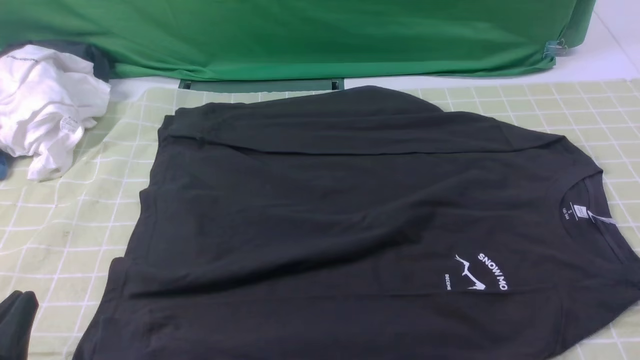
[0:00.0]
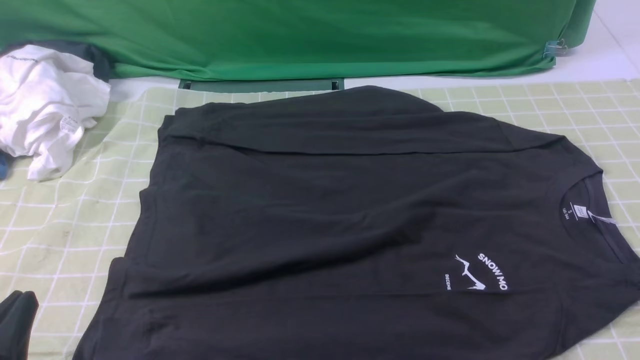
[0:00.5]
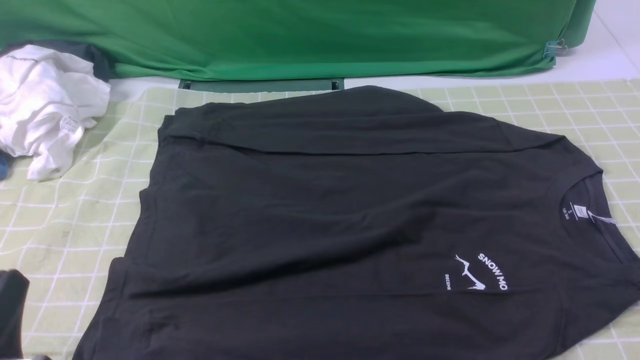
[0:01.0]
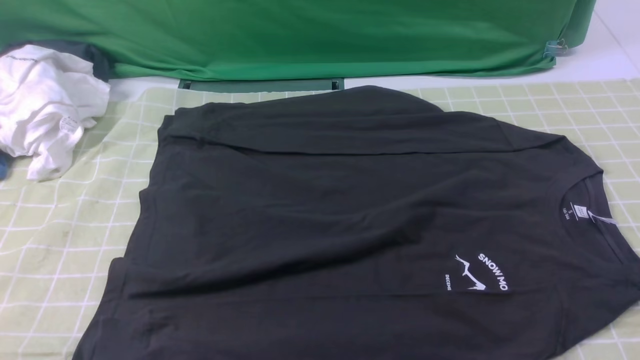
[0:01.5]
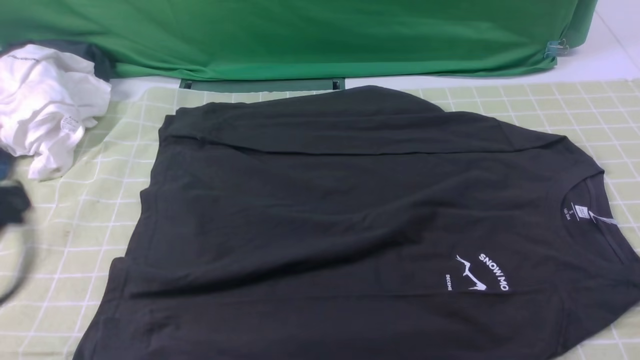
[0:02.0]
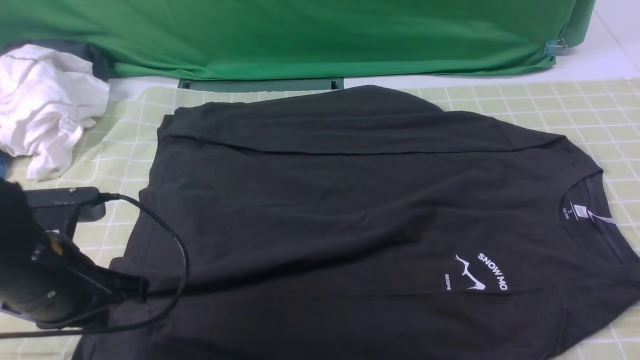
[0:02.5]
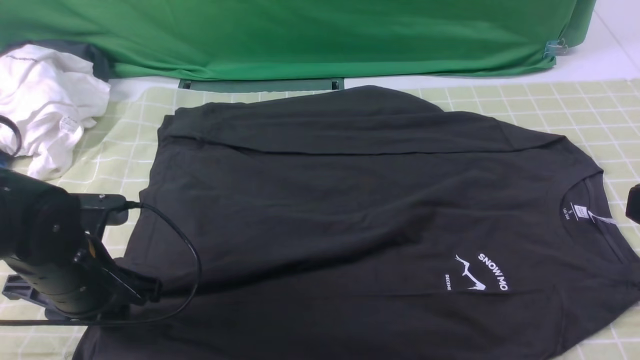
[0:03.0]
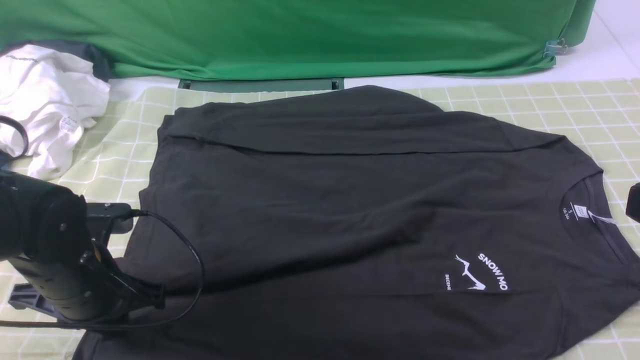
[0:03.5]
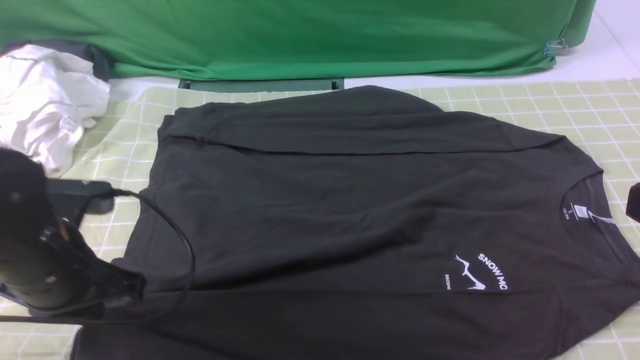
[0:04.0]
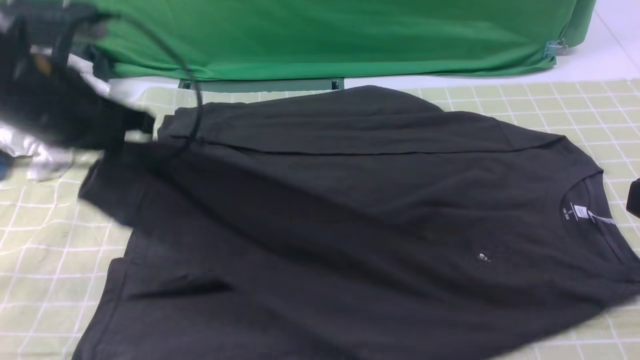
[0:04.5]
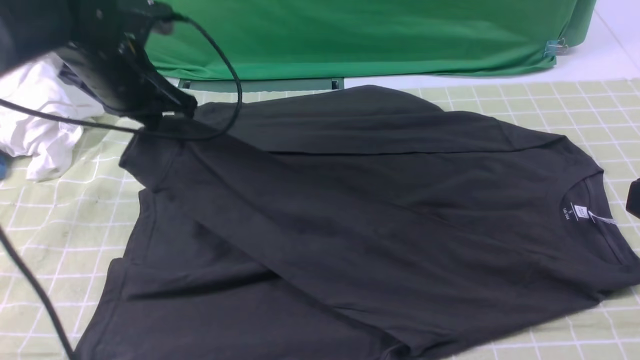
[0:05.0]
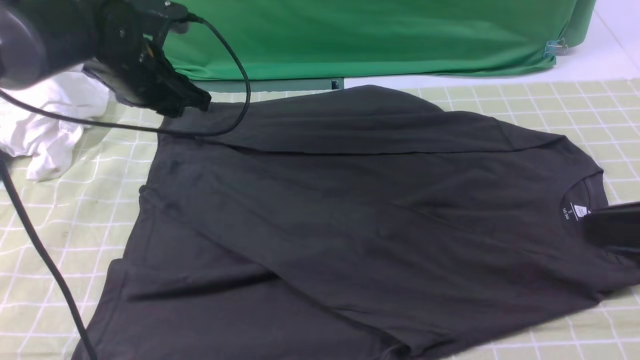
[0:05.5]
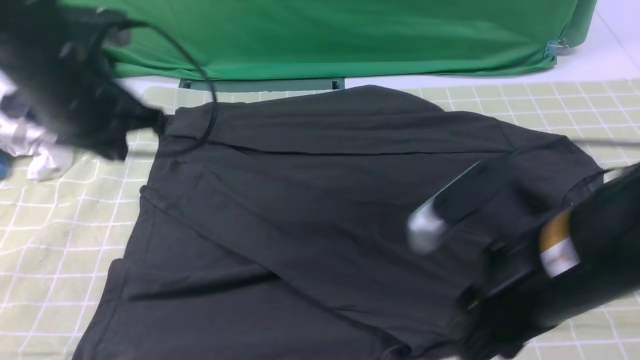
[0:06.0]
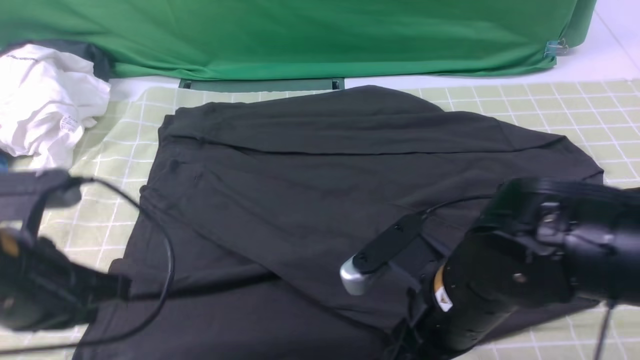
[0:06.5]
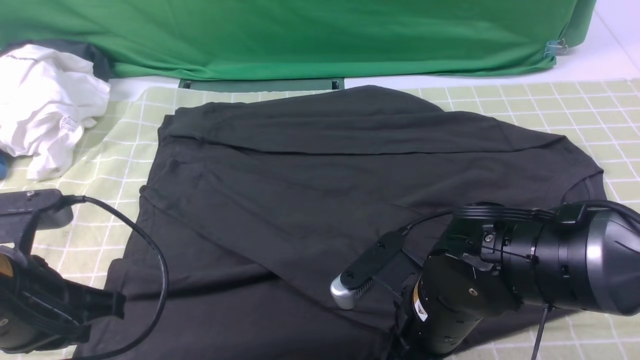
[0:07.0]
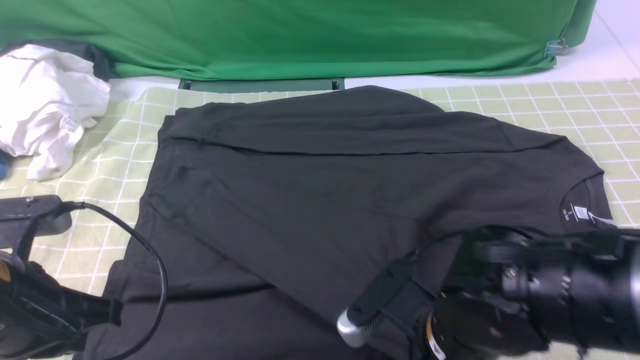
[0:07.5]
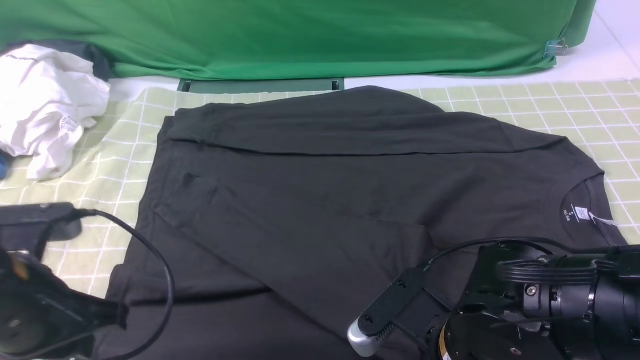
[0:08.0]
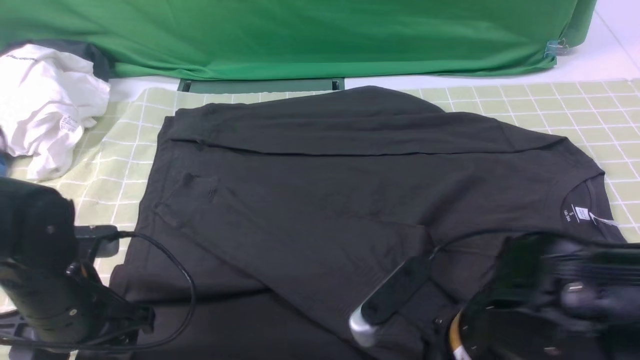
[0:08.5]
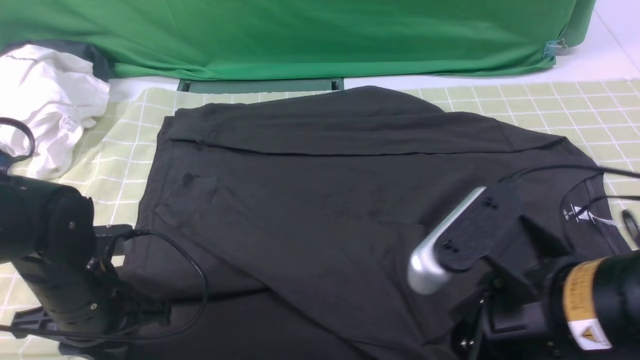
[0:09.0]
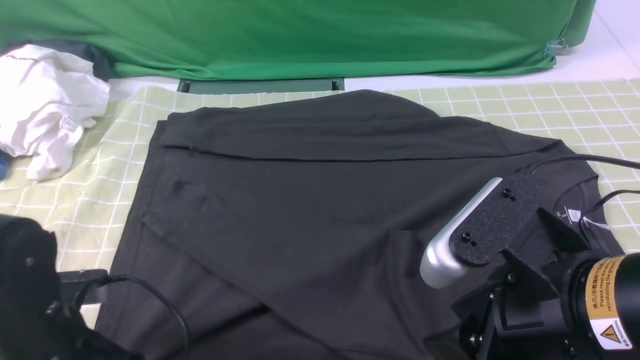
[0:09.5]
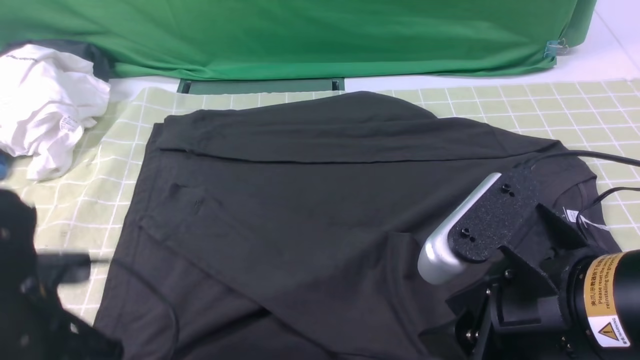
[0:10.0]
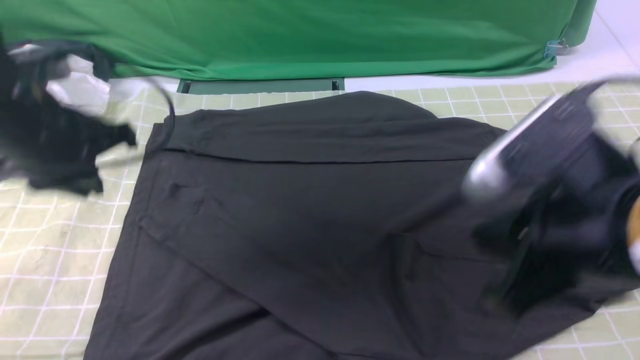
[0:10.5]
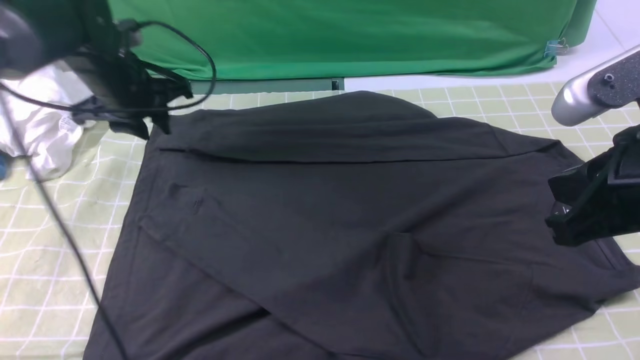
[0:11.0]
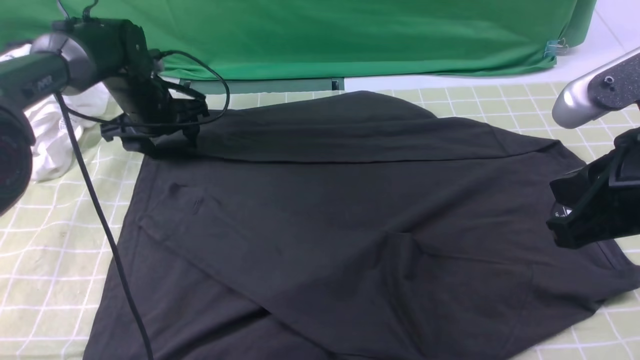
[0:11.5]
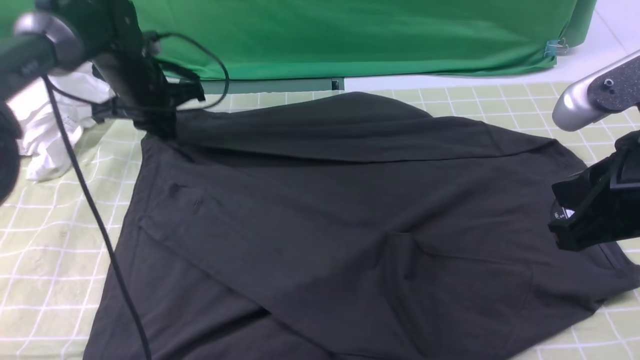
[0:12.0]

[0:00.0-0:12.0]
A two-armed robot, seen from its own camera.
Step, 0:00.0 to 0:03.5: use the left arm to clamp the cuff closest to it.
Step, 0:04.0 to 0:05.0: use the left arm to drag and place the cuff at the centered position on the left edge of the fabric.
Step, 0:06.0 to 0:11.5: use the left arm to clamp the cuff farthest from it.
0:00.0 to 0:02.0: The left gripper travels upward and forward by some 15 cm.
0:02.0 to 0:04.0: The right gripper shifts approximately 10 cm upward and to the left; the left gripper goes roughly 15 cm downward and forward, and opens, then closes again.
0:04.0 to 0:06.0: The right gripper shifts roughly 15 cm to the left, downward and forward, and opens its fingers; the left gripper heads forward and upward, covering about 10 cm, and opens and closes again.
0:06.0 to 0:08.0: The right gripper moves downward, roughly 10 cm, and closes up. The left gripper shifts about 15 cm backward and downward.
0:08.0 to 0:10.0: The right gripper moves upward, about 15 cm, and opens. Meanwhile the left gripper opens, then closes once more.
0:10.0 to 0:12.0: The left gripper moves forward, some 30 cm, and closes its fingers. The right gripper shifts about 10 cm to the right and forward, and closes up.

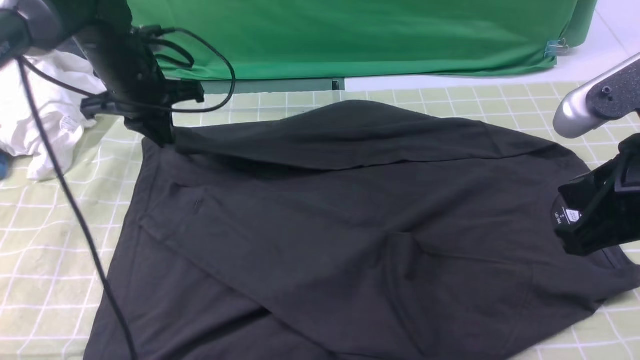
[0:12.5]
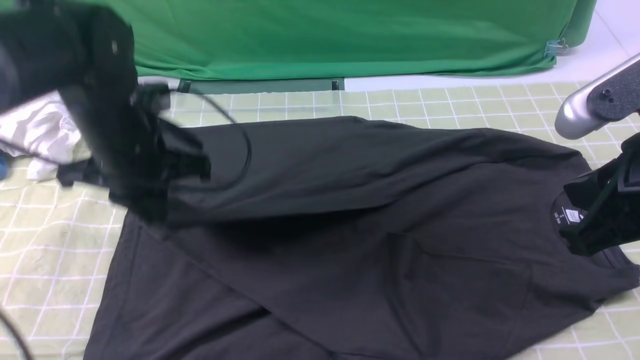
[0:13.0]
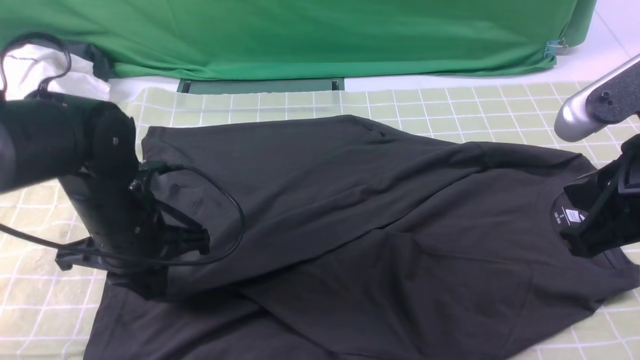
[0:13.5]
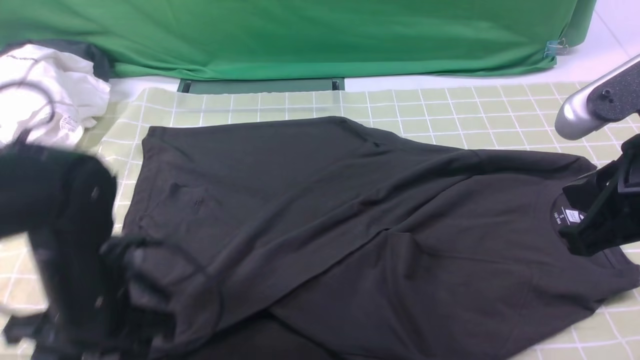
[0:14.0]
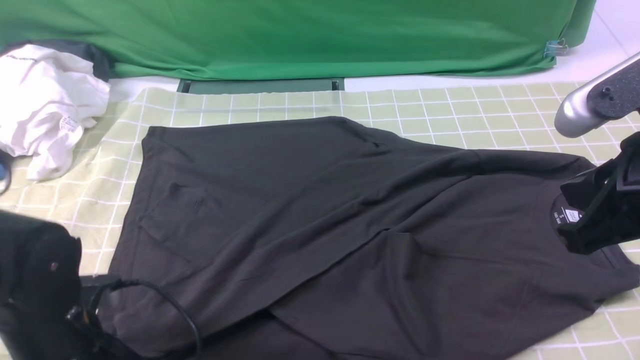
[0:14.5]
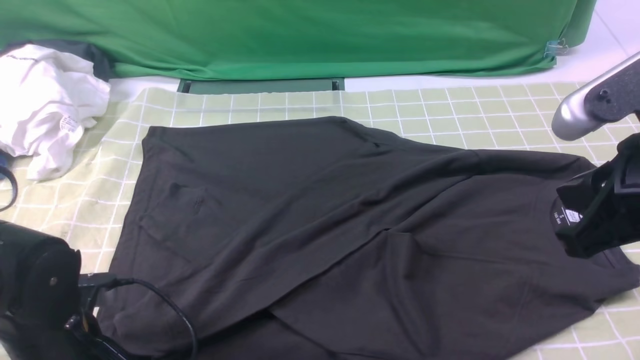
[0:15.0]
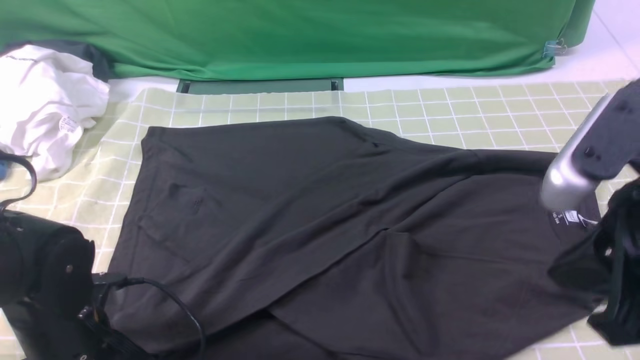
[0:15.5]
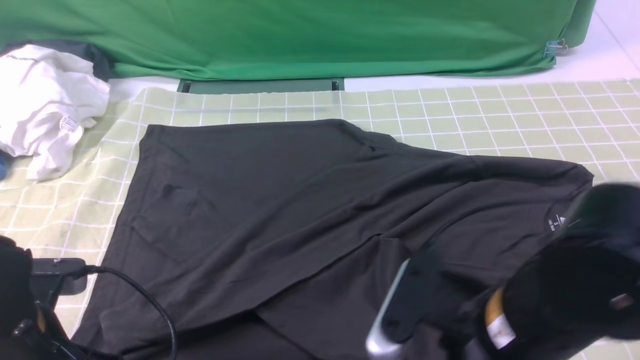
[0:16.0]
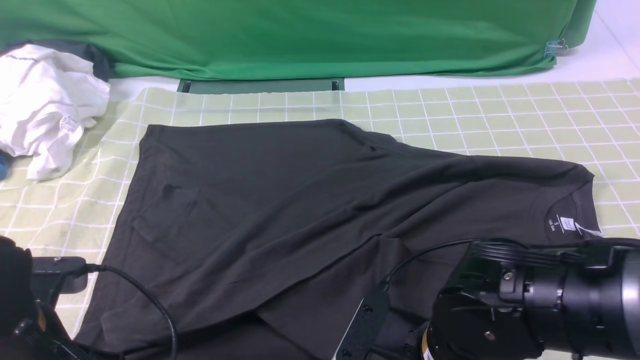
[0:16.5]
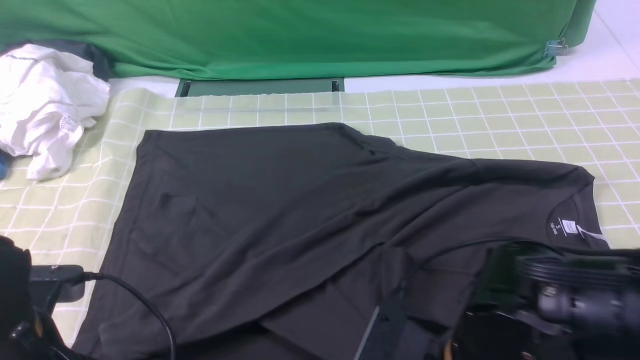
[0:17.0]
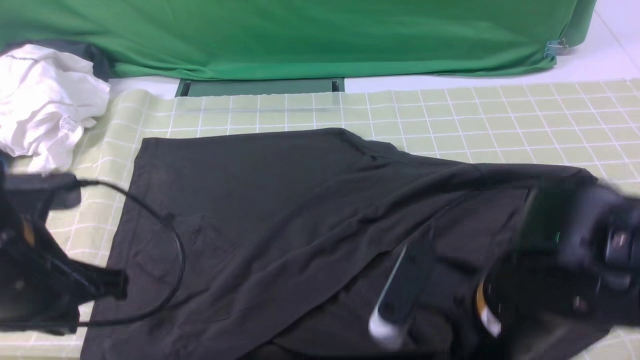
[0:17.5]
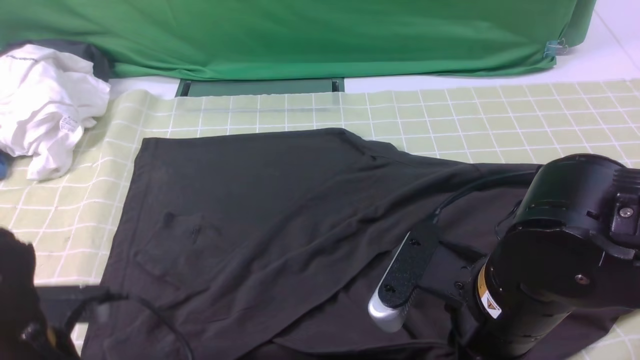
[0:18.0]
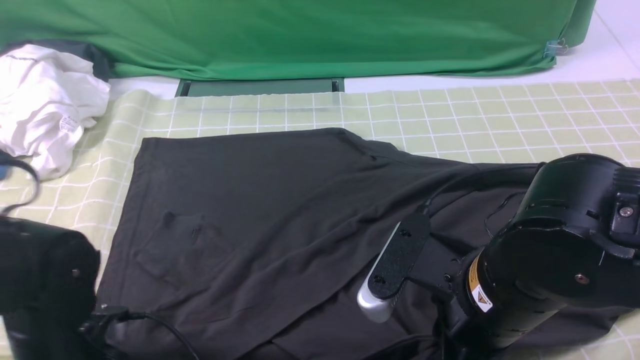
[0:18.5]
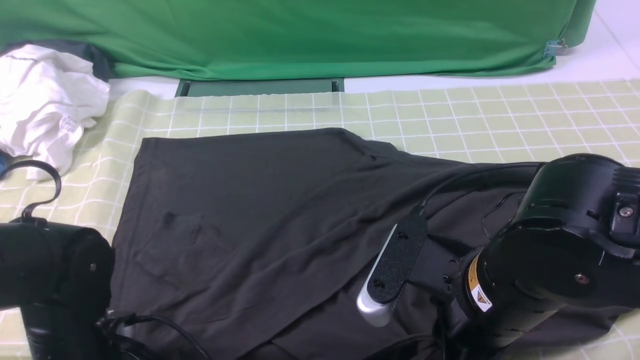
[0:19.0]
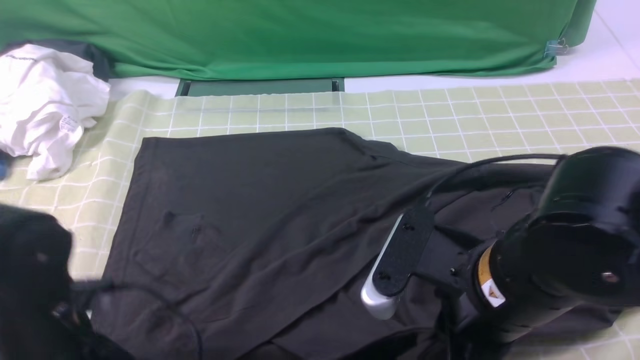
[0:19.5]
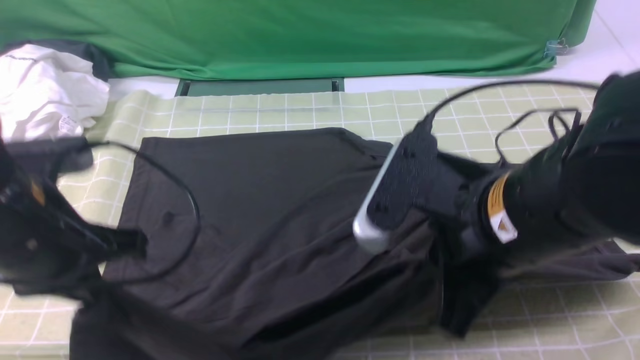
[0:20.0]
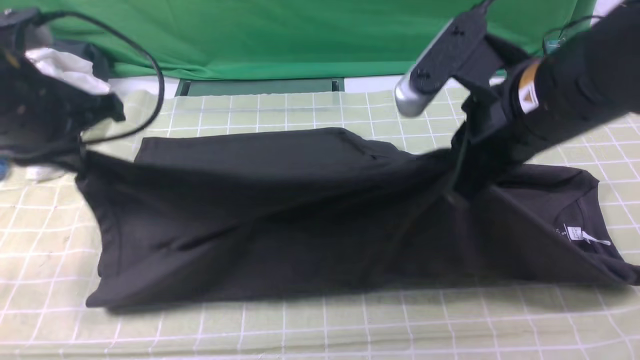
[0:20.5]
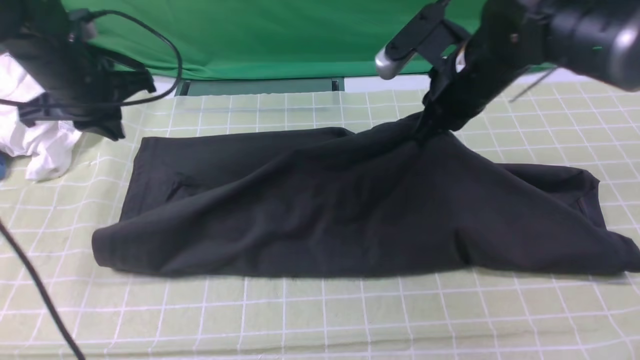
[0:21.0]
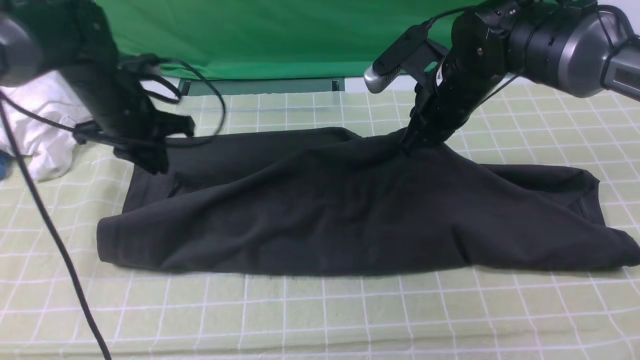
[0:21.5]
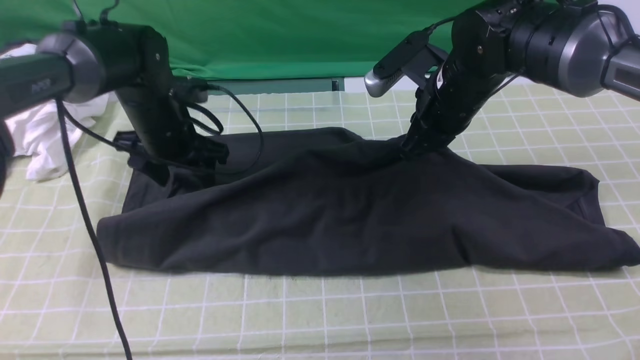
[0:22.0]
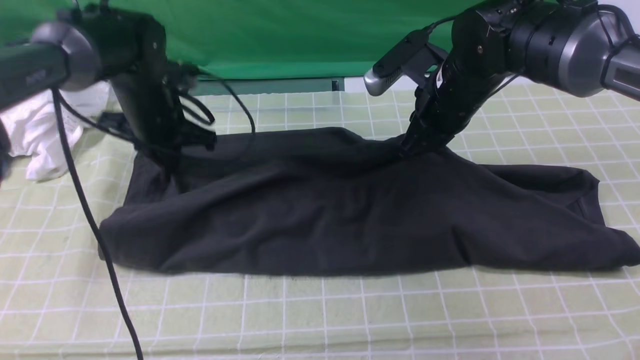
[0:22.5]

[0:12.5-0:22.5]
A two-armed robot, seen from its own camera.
Step, 0:12.5 to 0:15.0: use the left arm to drag and drop the cuff onto the cuff closest to the left arm.
Step, 0:15.5 to 0:19.5: use both arms simultaneously to clamp the lower edge of the clothing fabric.
0:12.5 to 0:14.5: The left gripper moves backward, roughly 25 cm, and opens its fingers.
0:14.5 to 0:16.5: The left gripper closes up; the right gripper moves downward and to the left, about 20 cm, and opens.
0:16.5 to 0:18.5: The right gripper travels upward by approximately 5 cm, and closes up. The left gripper opens its fingers.
0:18.5 to 0:20.5: The right gripper shifts approximately 15 cm forward and upward. Meanwhile the left gripper shifts roughly 20 cm upward and forward, and closes up.
0:20.5 to 0:22.5: The grippers both shift forward and downward by about 15 cm. The left gripper opens and closes again.
